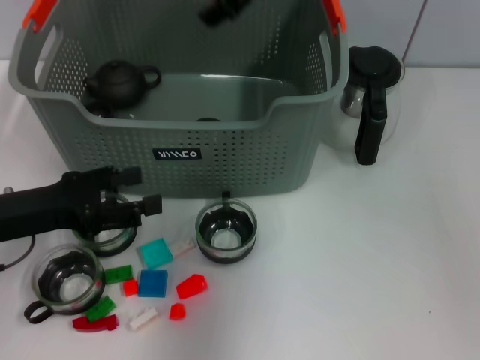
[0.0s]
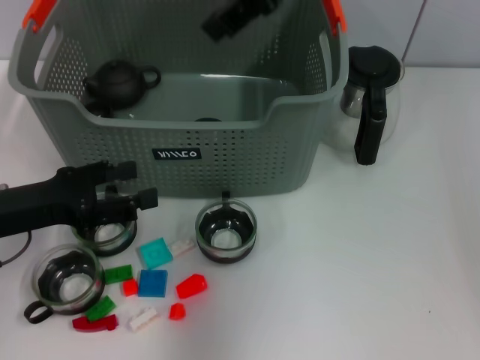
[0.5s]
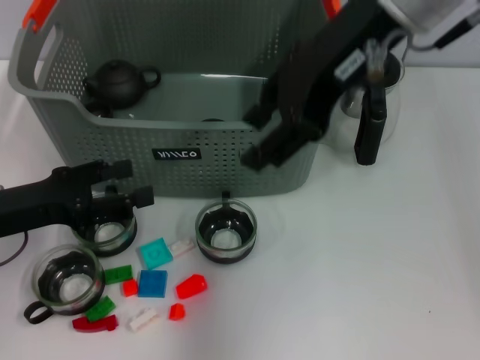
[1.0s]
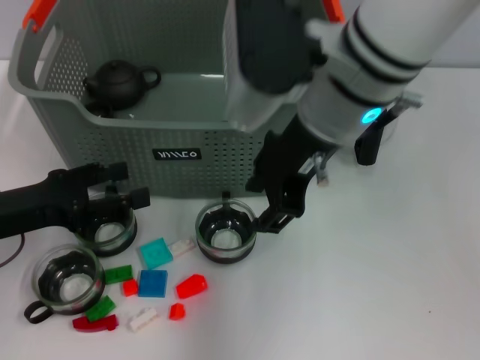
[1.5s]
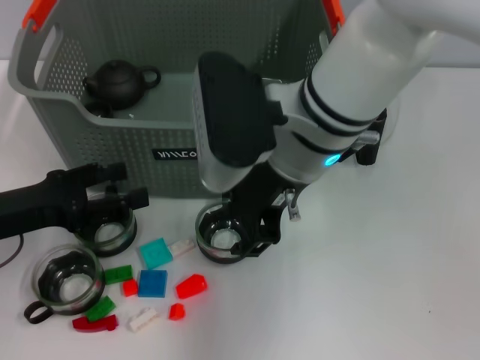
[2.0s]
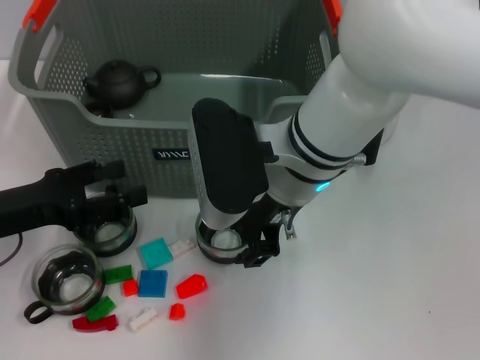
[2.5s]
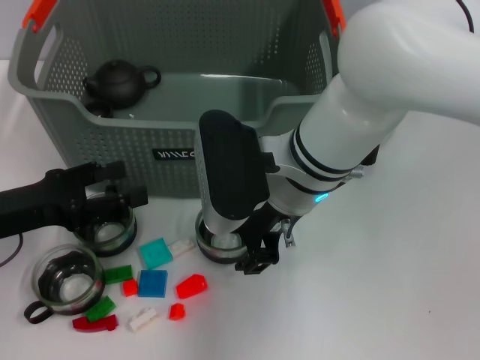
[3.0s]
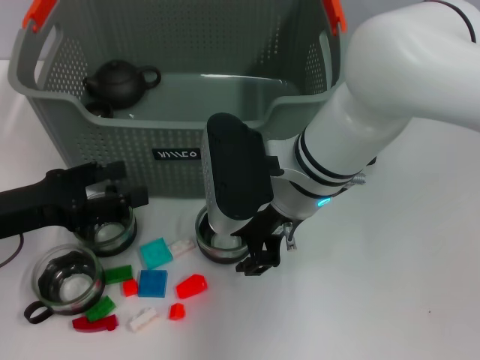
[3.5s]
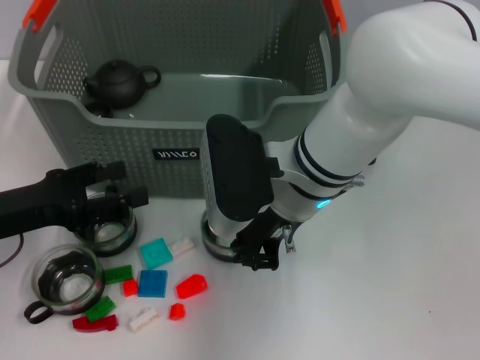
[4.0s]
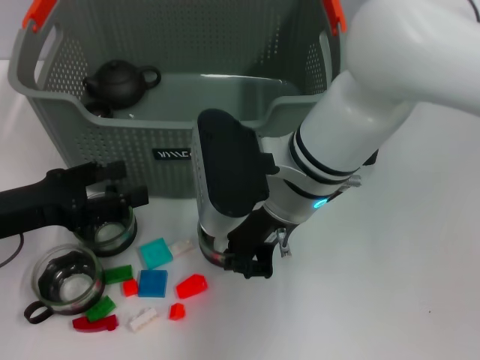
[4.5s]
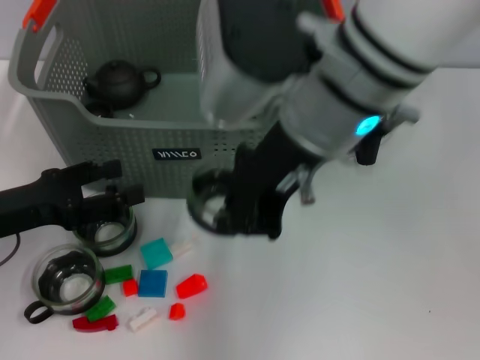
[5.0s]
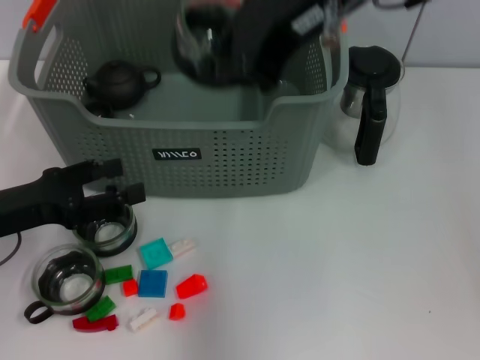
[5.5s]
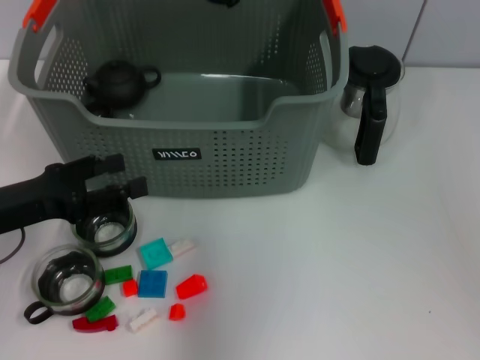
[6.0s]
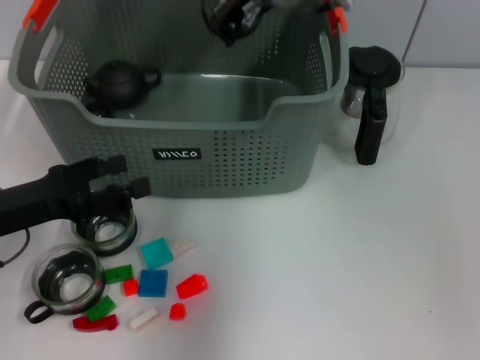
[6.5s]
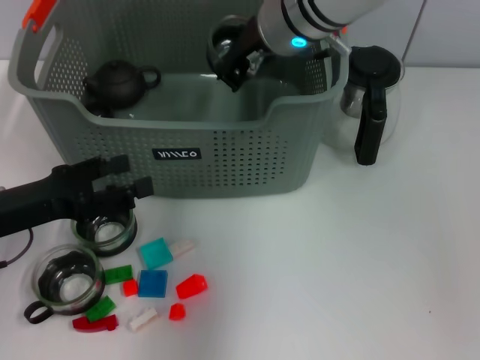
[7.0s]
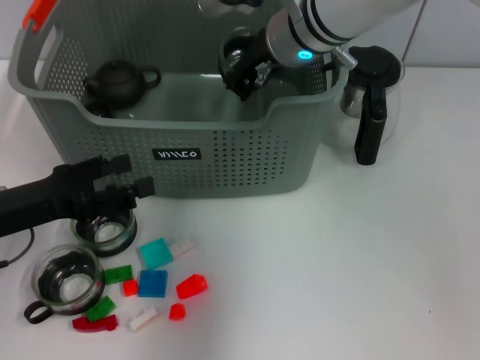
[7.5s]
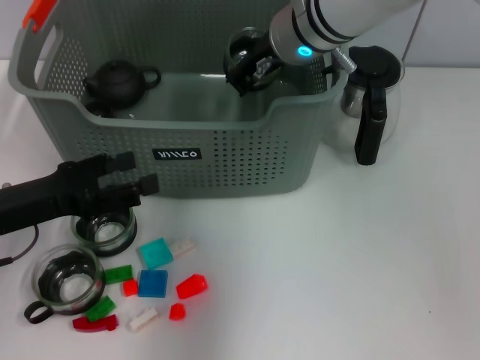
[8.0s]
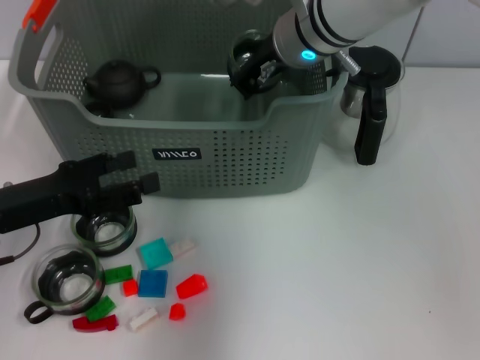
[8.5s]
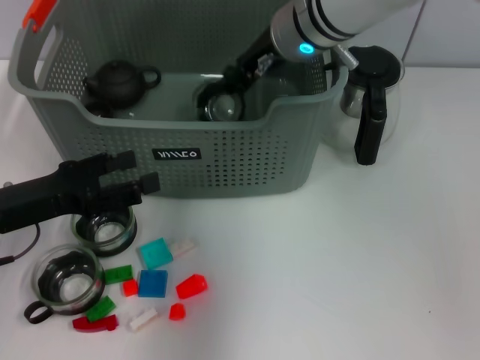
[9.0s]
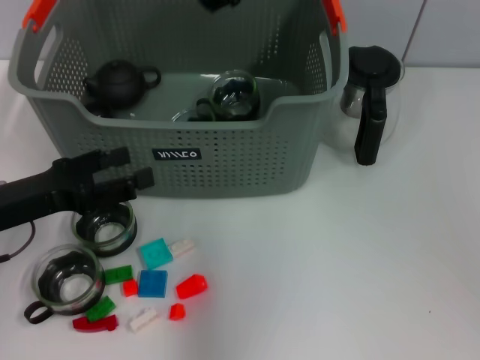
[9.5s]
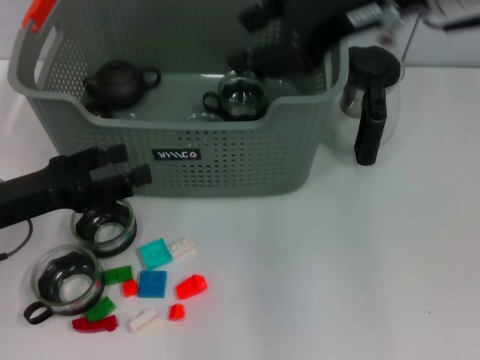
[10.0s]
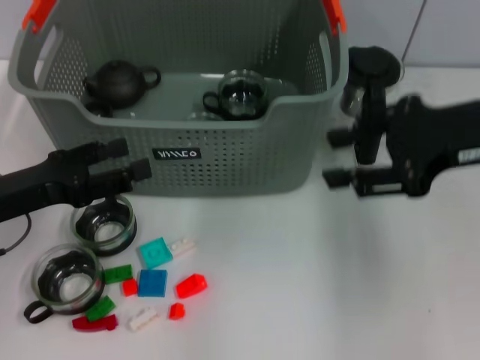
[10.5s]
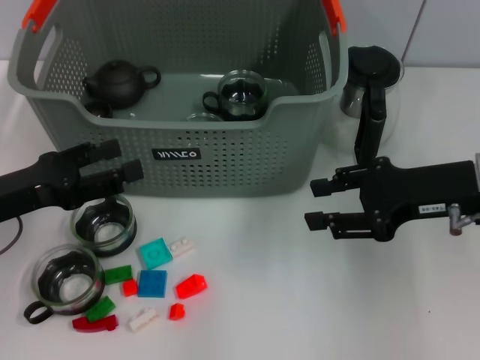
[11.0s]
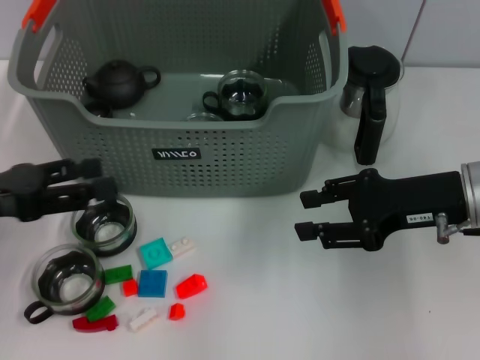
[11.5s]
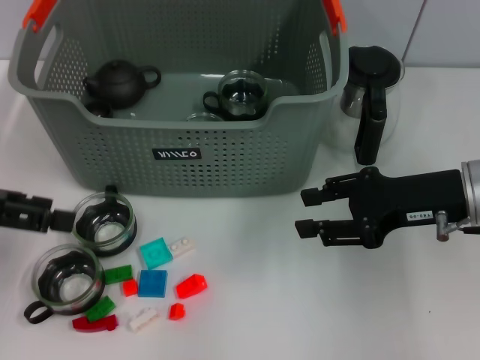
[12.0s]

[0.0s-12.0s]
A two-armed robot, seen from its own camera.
Task of the whole recording: pick up the teacup on the table and place it into the storage bin, pick up the block on the table and place it into the storage bin.
Step, 0.0s to 4.5s: Grasp the cup with right gripper.
Step, 5.0s to 9.0s: Place the cup in the storage box with right gripper.
0.0s to 2.0s: The right gripper is displaced backward and downward by approximately 15 cm.
2.0s to 4.0s: The right gripper travels downward by approximately 5 cm, and closes up.
4.0s to 6.0s: The right gripper moves upward and forward, about 20 cm, and closes its fingers.
6.0s to 8.0s: The right gripper is displaced downward by about 10 cm.
8.0s to 10.0s: The right gripper heads upward, backward and to the right, covering roughly 20 cm, and opens up.
10.0s to 12.0s: The left gripper travels upward by some 10 cm. Meanwhile the right gripper goes about 20 cm downward and to the right.

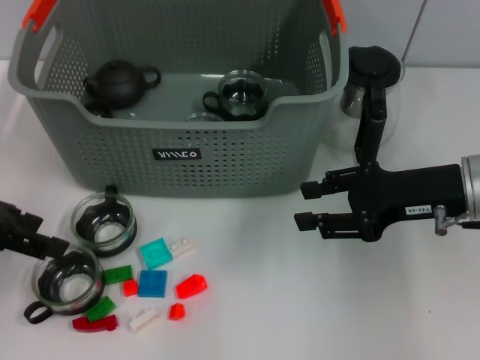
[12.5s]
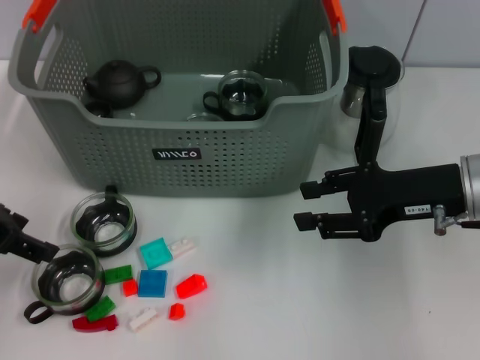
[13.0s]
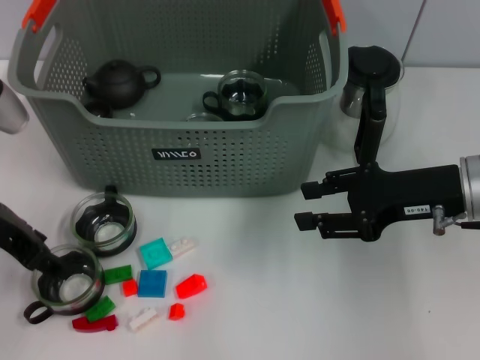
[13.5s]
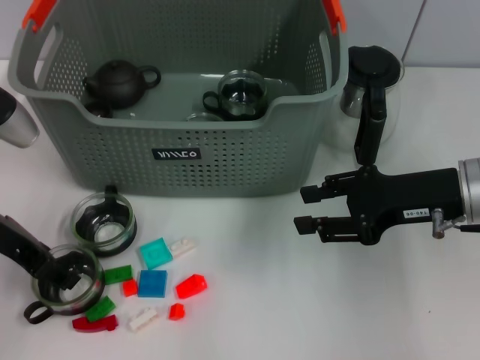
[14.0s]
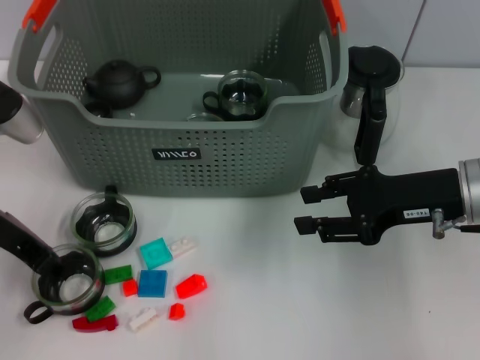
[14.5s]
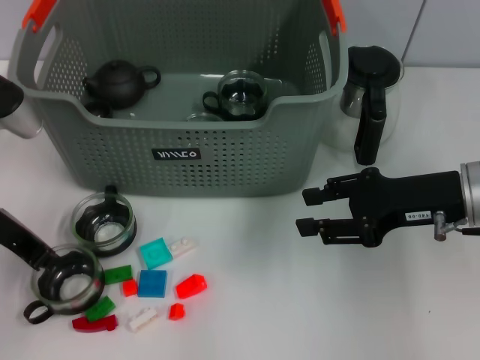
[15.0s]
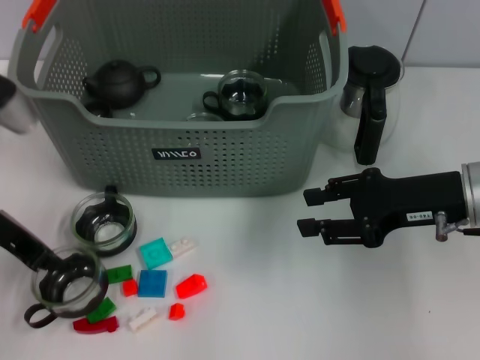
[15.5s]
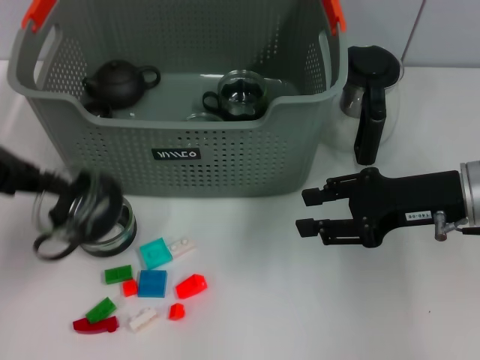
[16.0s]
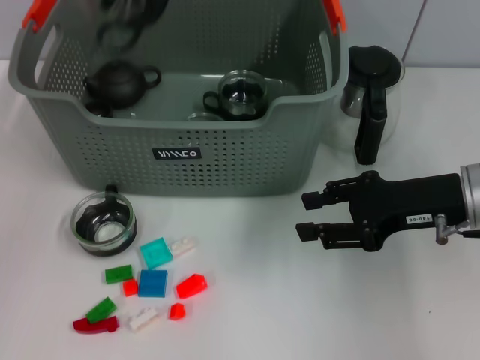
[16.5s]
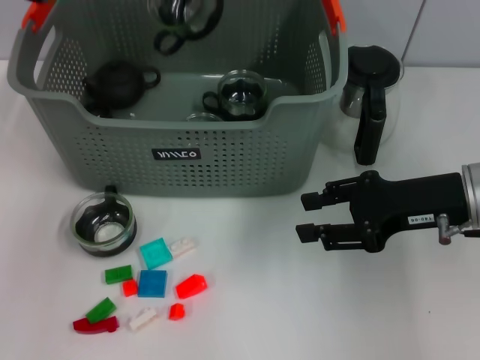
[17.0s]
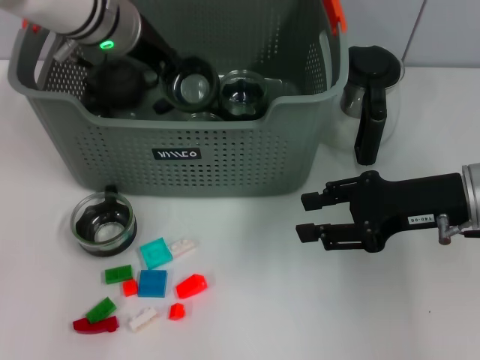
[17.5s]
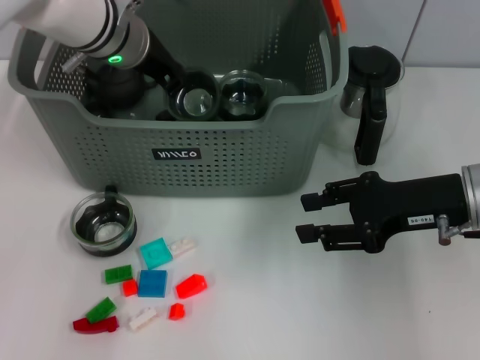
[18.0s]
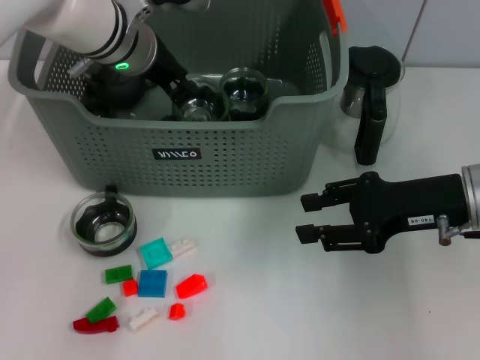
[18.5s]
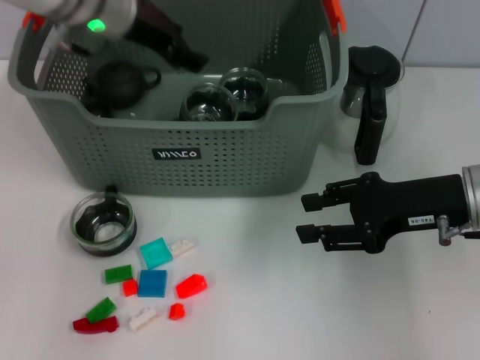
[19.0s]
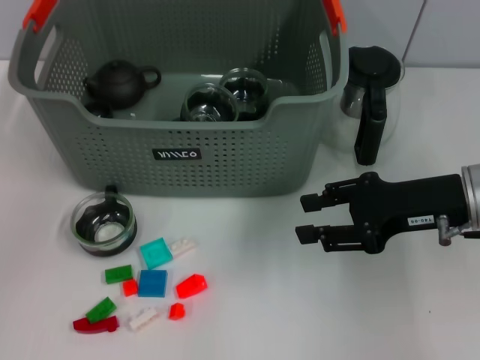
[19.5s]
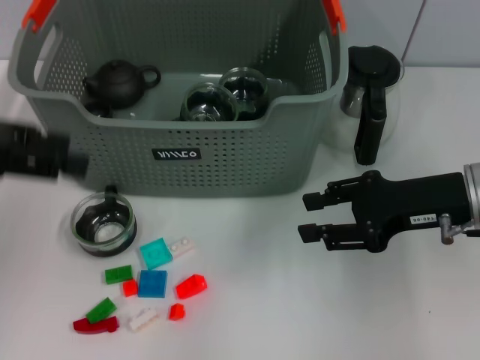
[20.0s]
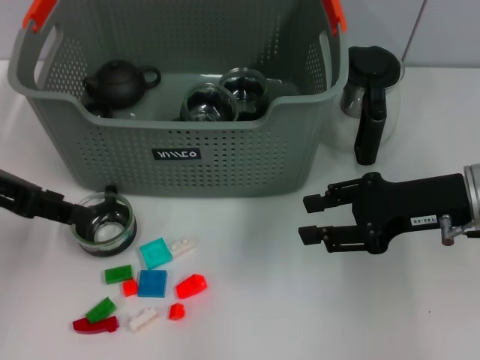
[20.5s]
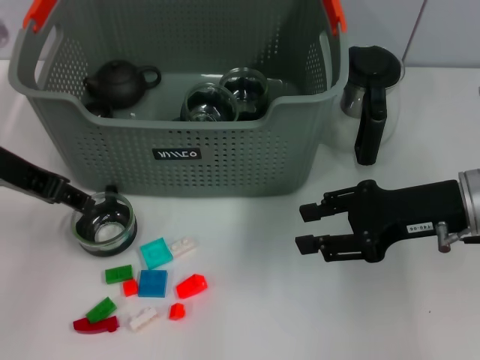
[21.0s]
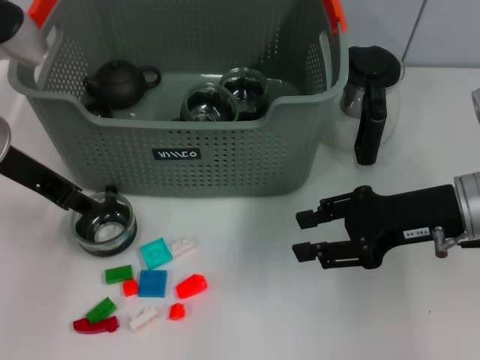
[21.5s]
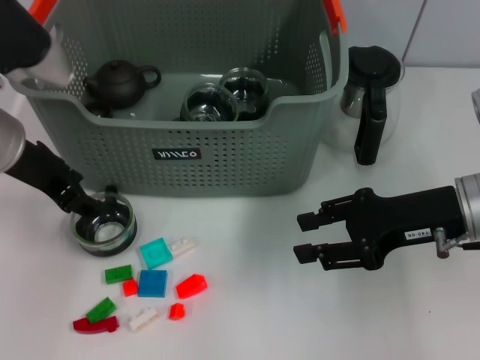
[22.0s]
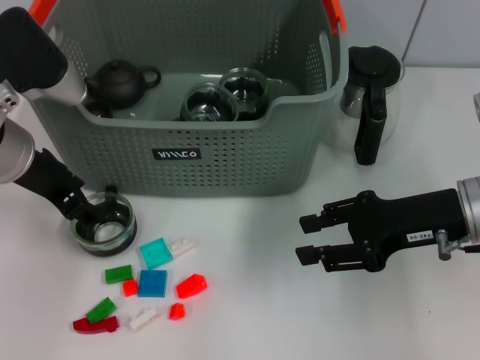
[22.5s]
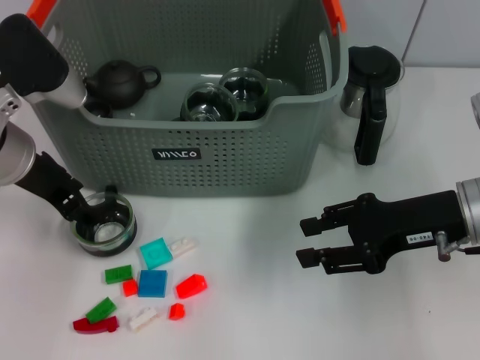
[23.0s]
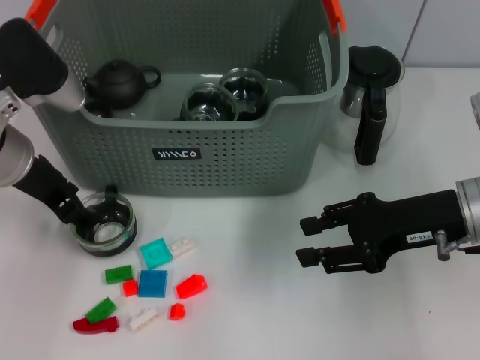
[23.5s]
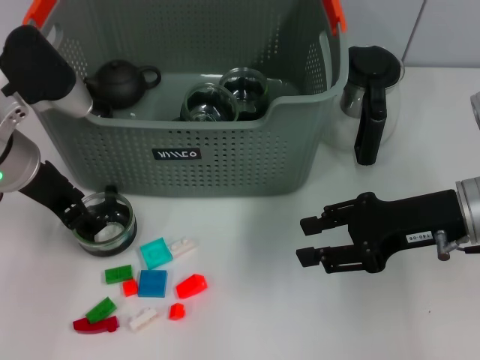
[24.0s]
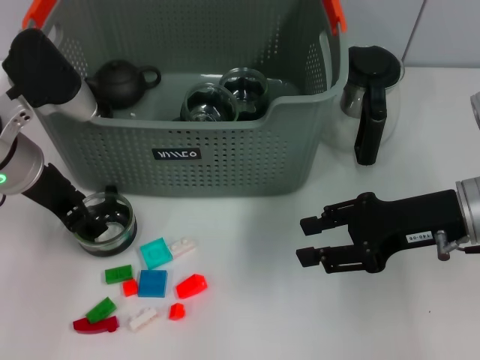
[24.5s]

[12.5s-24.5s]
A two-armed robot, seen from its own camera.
Task of the whole recording: pick up the teacup on the table and place it into the storage bin, pick up the block on the table and place it into the storage bin.
Step, 12.5s to 15.5s: Grasp the cup with left gripper.
Step, 16.0s to 19.0s: Place the cup in the storage box with left gripper.
12.5s to 14.5s: The left gripper goes roughly 10 cm downward and to the right.
14.5s to 16.5s: The left gripper shifts roughly 15 cm upward, and closes its fingers.
16.5s to 18.5s: The left gripper goes about 20 cm to the right, downward and forward.
18.5s to 20.5s: The left gripper moves backward and to the left, roughly 20 cm, and opens its fingers.
20.5s to 22.5s: The left gripper shifts about 5 cm to the right.
22.5s to 24.5s: The grippers make only small movements.

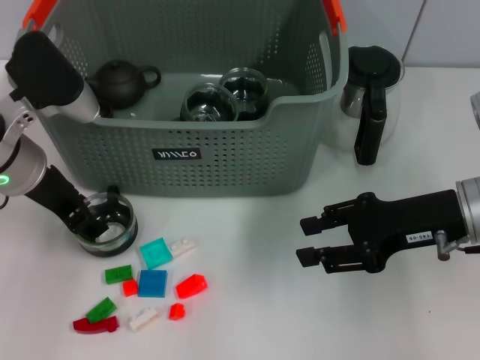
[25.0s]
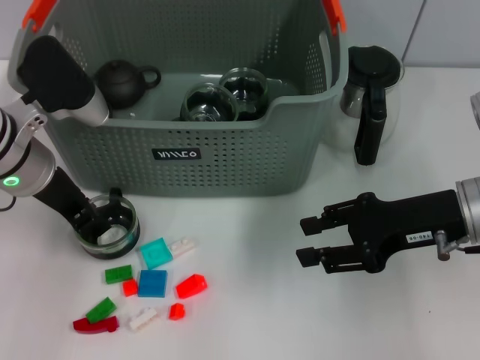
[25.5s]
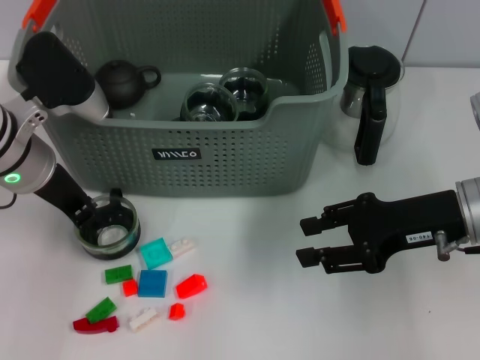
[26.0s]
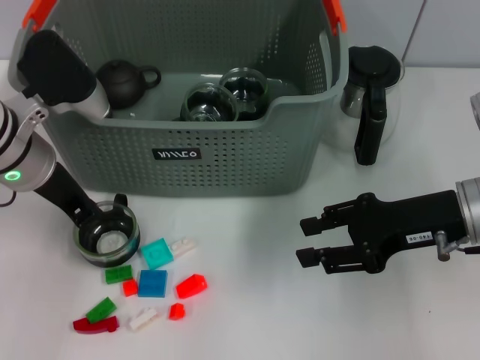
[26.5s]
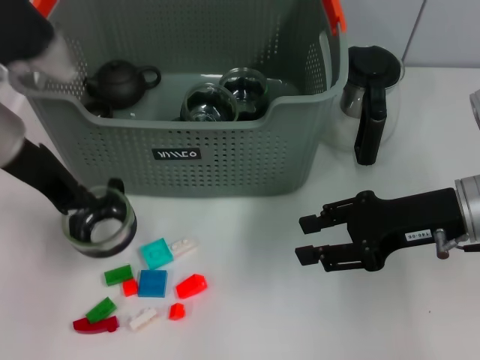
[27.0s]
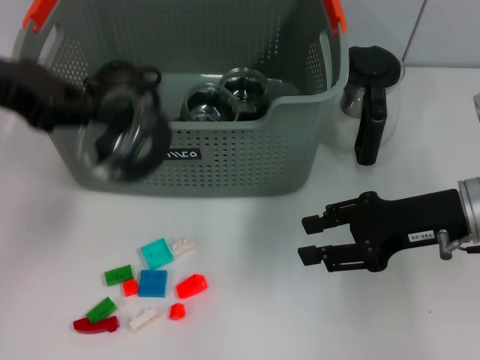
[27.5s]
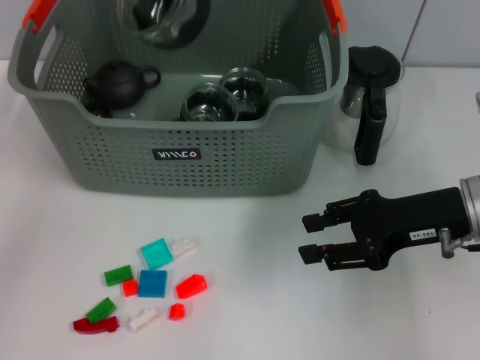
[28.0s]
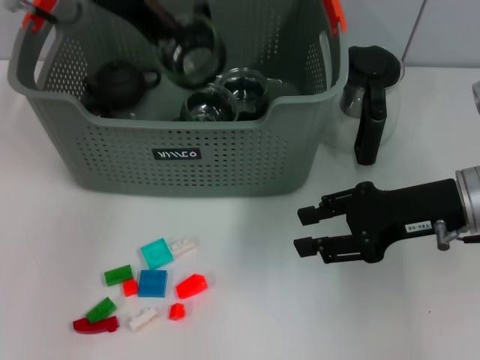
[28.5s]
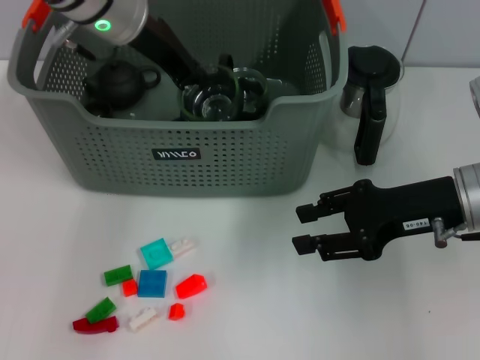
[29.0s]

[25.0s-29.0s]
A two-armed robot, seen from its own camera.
Task of the whole recording: pick up the teacup on the table and place it into the storage bin, pick up the block on the table and place it into the storage bin.
25.0s to 27.0s: The left gripper closes.
27.0s to 29.0s: The left gripper moves forward and to the right, roughly 15 cm.
